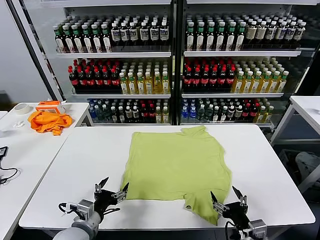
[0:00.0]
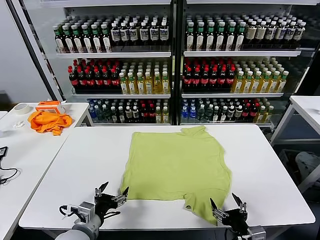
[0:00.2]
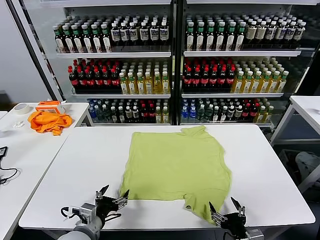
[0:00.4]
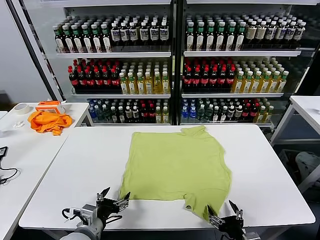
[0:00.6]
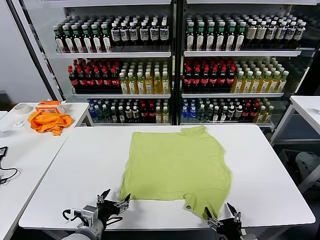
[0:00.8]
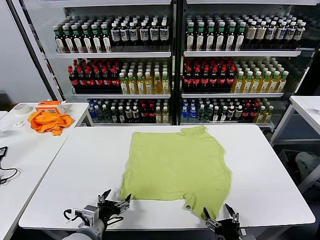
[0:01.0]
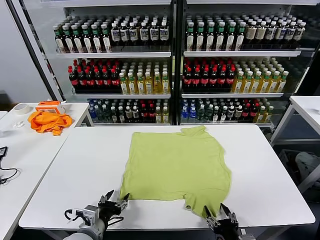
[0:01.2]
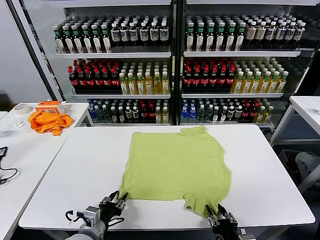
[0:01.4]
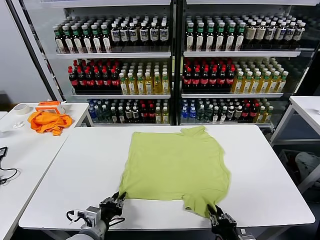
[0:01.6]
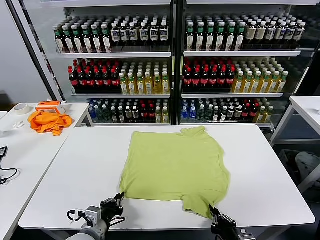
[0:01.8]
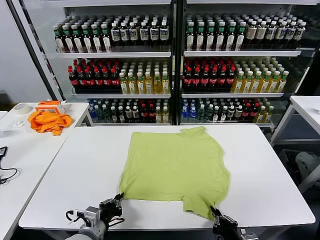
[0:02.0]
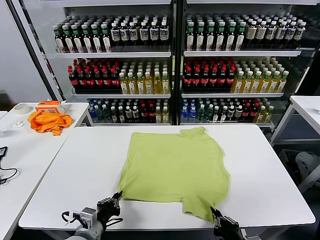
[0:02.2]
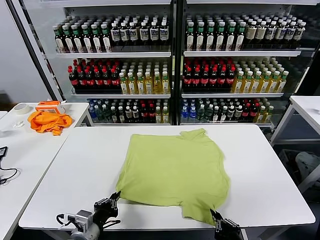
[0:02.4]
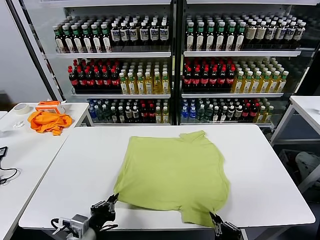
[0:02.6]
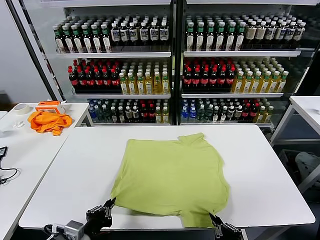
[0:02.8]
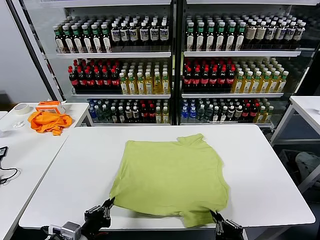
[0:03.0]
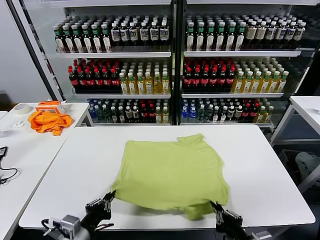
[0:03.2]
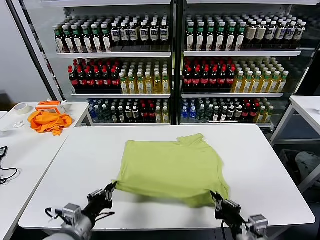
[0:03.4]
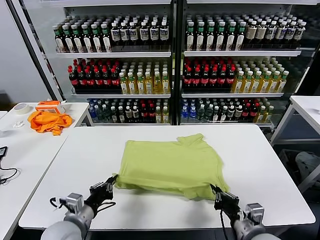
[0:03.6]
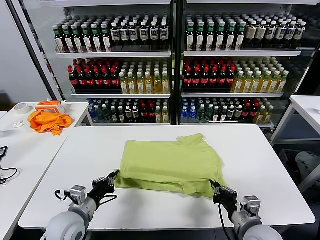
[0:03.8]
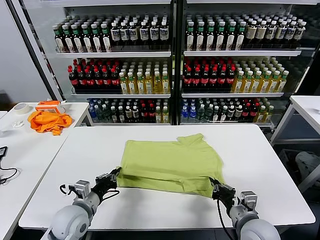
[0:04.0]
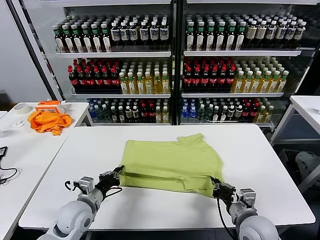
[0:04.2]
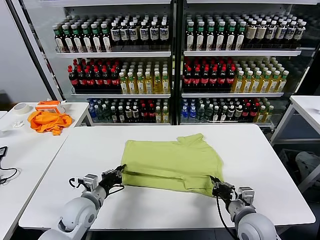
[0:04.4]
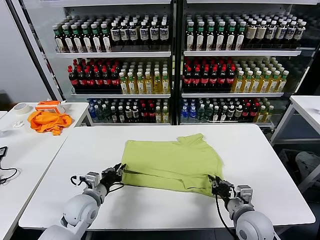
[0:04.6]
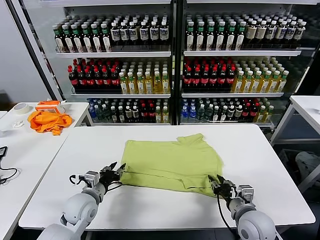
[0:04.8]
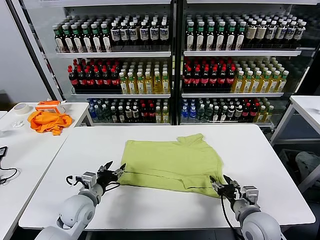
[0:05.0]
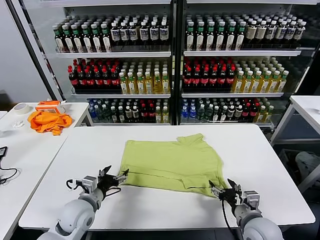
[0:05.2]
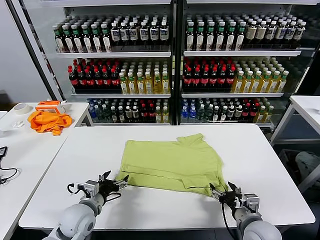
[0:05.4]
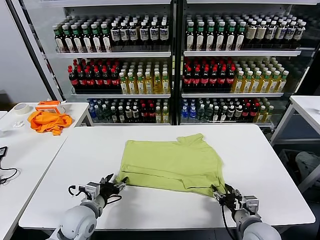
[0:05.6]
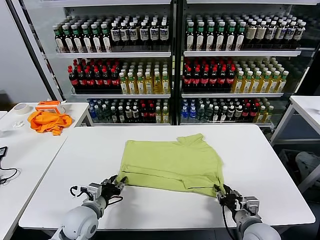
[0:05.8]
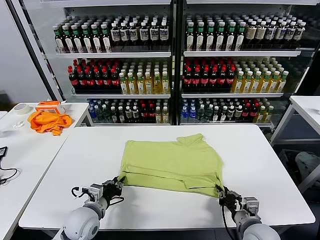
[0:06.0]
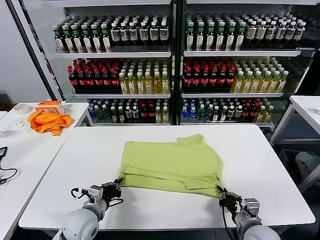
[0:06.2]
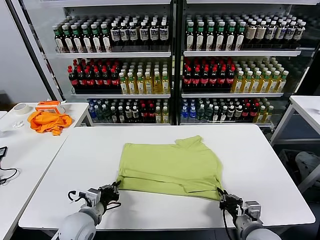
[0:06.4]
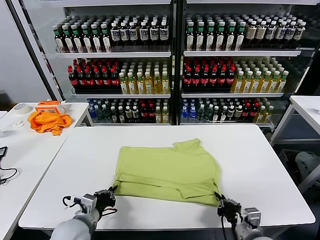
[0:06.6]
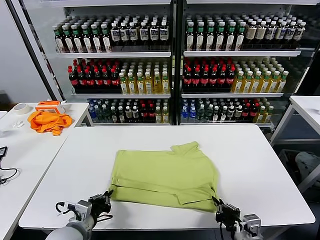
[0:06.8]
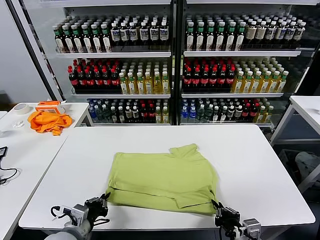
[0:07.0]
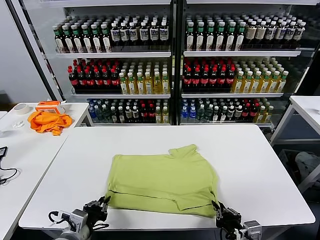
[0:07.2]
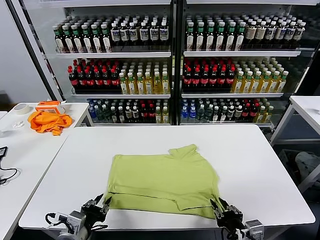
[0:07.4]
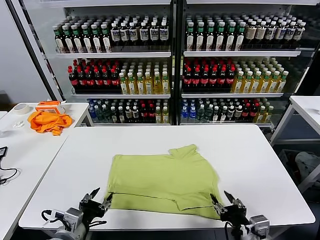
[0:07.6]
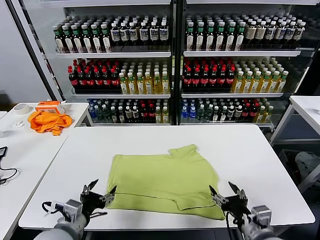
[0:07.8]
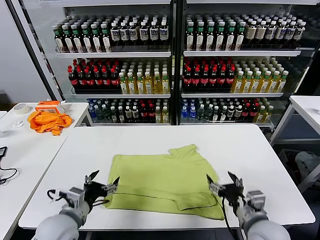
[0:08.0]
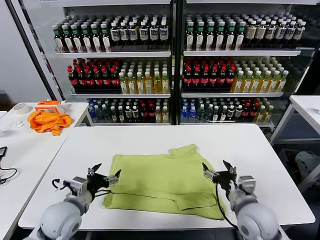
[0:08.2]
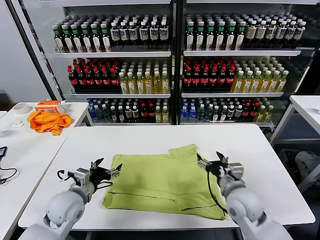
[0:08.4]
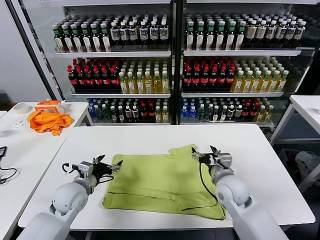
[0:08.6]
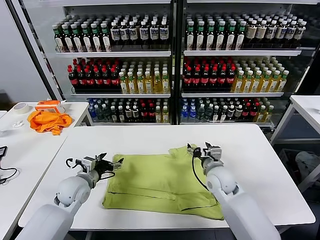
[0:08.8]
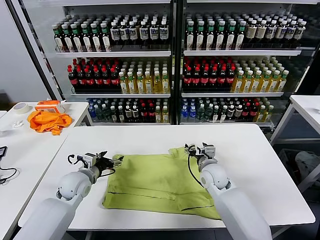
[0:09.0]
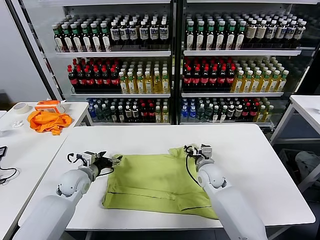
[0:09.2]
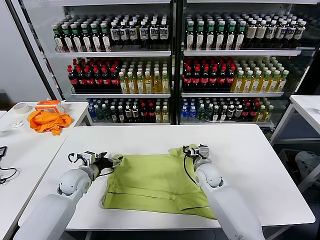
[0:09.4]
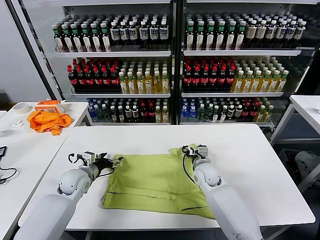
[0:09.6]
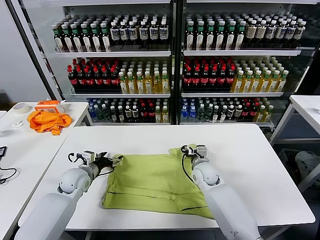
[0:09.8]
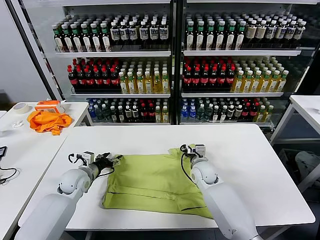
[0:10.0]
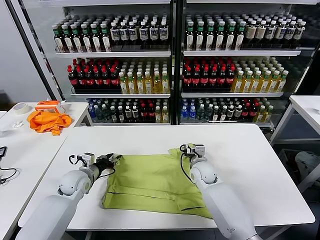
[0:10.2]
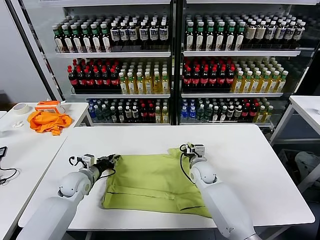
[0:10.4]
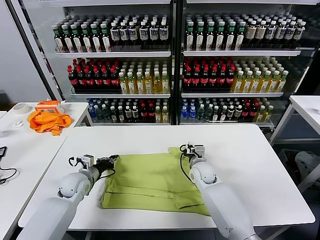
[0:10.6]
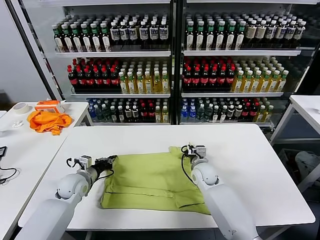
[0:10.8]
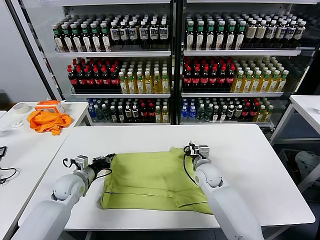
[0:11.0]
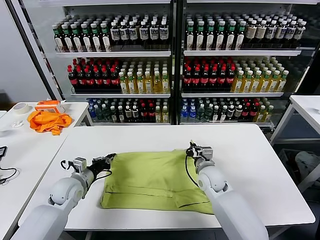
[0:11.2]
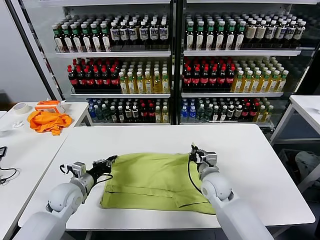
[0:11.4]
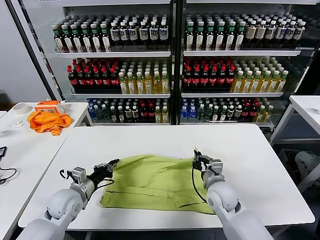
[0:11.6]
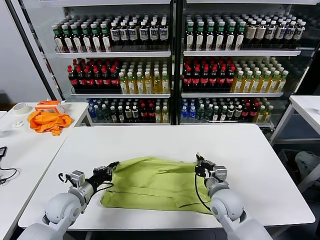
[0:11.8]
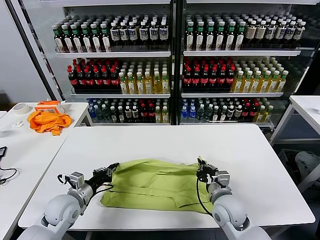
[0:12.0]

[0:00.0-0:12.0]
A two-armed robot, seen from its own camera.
Task of the whole recording: fold and organize the clothes.
Step, 0.0 to 1.8 s: use both grippers simultaneously to clamp the lower edge of the clothing fabric.
Step, 2.0 to 4.8 s: use both grippers to drag the lower edge of the fabric forward and fold it over the upper edge.
Step, 5.0 to 7.4 s: Drag the clothes downward with both gripper.
Step, 7.6 to 10.6 s: use both grippers simultaneously to clamp the upper edge of the clothing fabric.
1.6 to 3.0 s: The left gripper is displaced upward and backward by roughly 10 cm; the right gripper goes approximately 10 cm upward.
3.0 to 4.4 s: The two grippers go approximately 15 cm forward.
4.4 to 6.0 s: The left gripper opens and closes again; the right gripper opens, then closes again.
6.0 to 7.6 s: The left gripper goes some 10 cm backward and upward, and opens; the right gripper moves upward and backward, approximately 10 cm, and opens its fingers.
7.6 to 9.0 s: Both grippers move forward, about 25 cm. The left gripper opens up.
9.0 to 10.4 s: The right gripper shifts by some 5 cm, and closes; the left gripper closes its fingers.
10.4 to 12.0 s: The right gripper goes roughly 15 cm backward. The left gripper is displaced backward by some 10 cm.

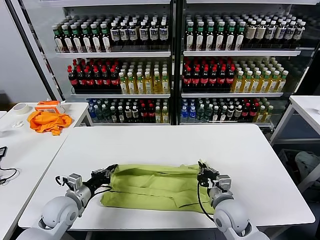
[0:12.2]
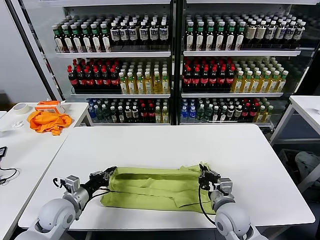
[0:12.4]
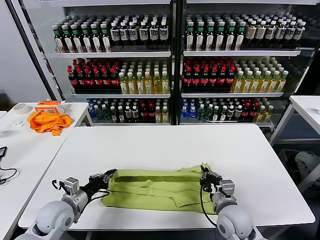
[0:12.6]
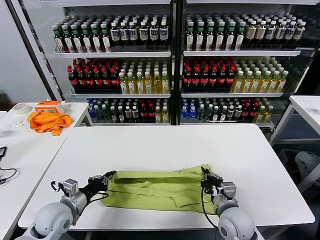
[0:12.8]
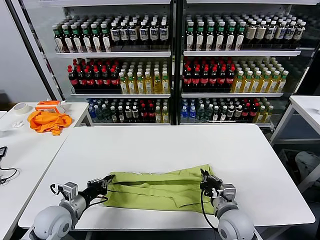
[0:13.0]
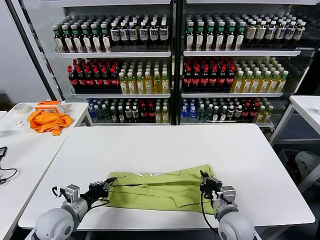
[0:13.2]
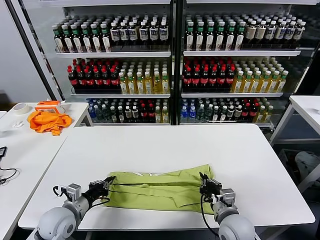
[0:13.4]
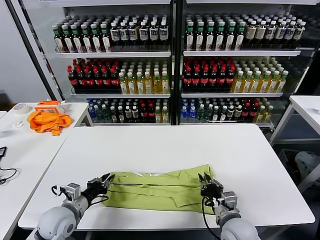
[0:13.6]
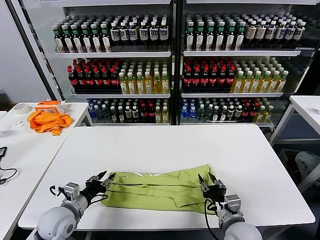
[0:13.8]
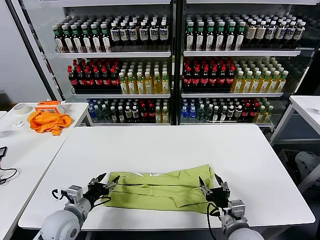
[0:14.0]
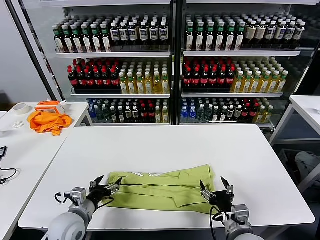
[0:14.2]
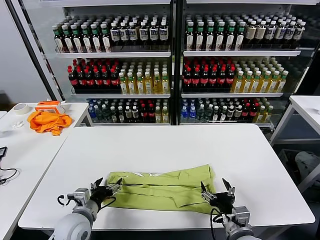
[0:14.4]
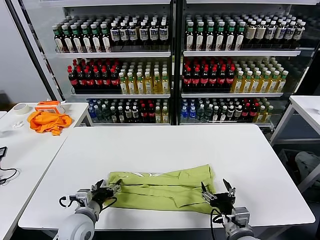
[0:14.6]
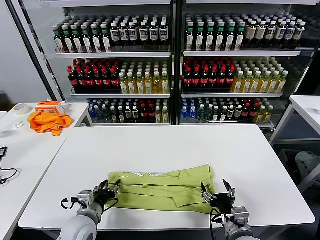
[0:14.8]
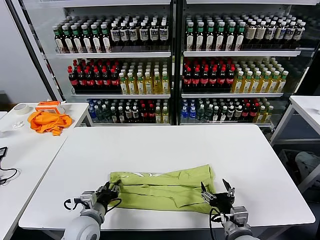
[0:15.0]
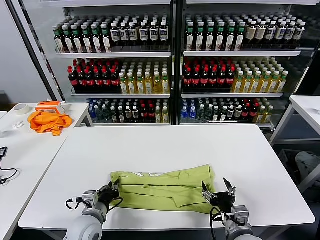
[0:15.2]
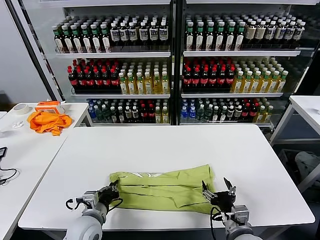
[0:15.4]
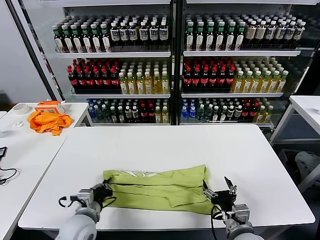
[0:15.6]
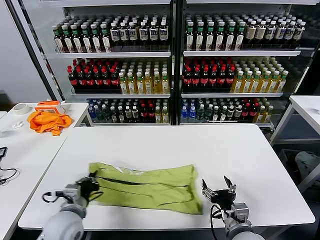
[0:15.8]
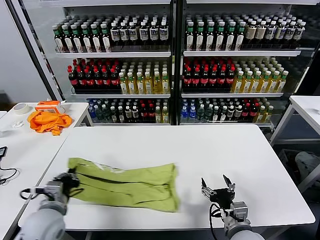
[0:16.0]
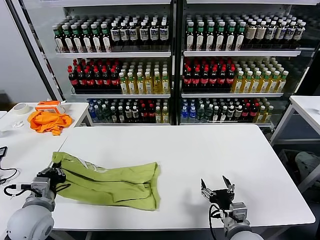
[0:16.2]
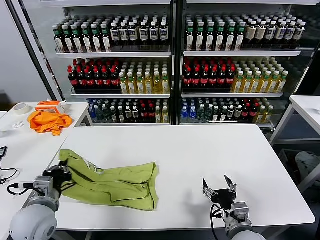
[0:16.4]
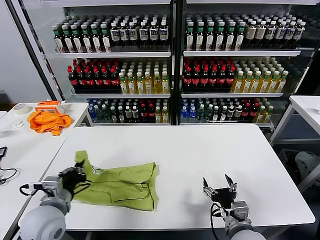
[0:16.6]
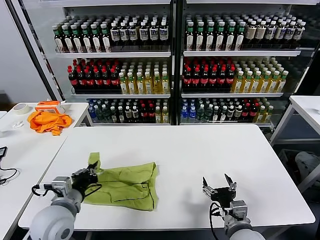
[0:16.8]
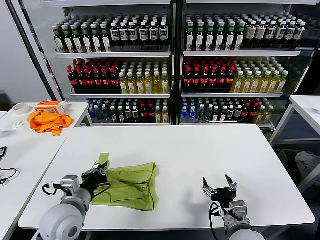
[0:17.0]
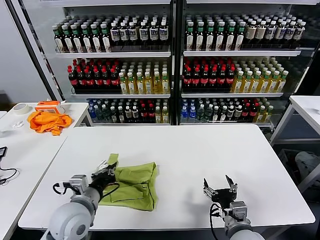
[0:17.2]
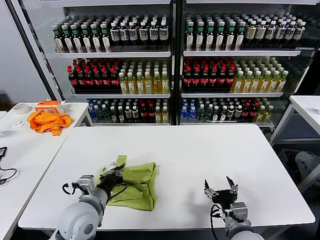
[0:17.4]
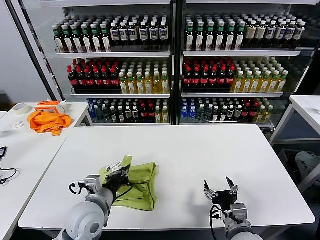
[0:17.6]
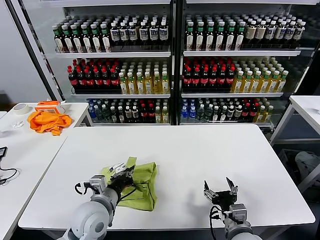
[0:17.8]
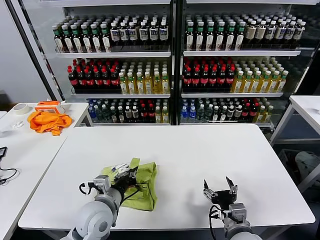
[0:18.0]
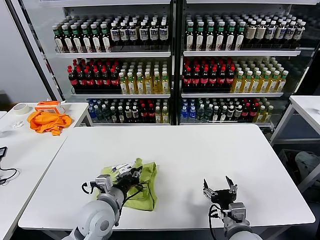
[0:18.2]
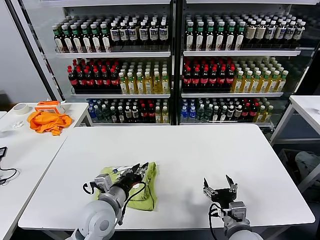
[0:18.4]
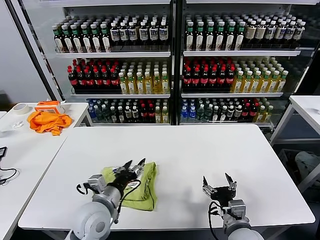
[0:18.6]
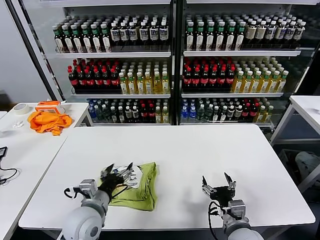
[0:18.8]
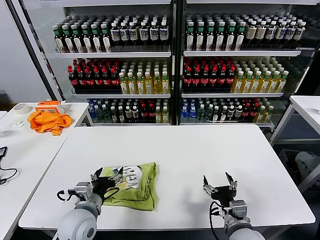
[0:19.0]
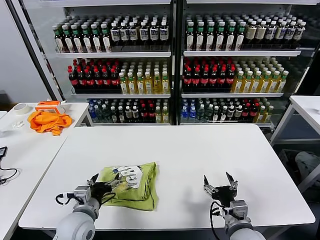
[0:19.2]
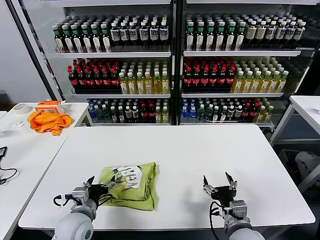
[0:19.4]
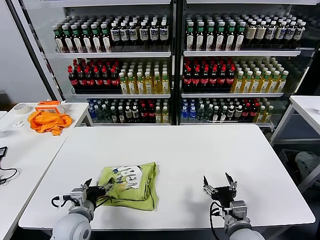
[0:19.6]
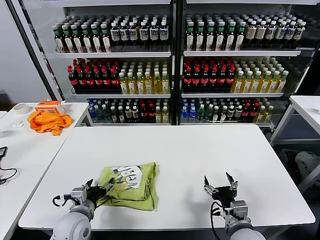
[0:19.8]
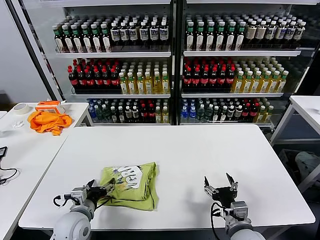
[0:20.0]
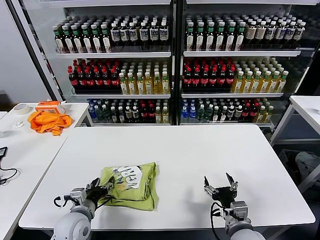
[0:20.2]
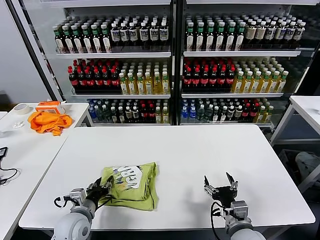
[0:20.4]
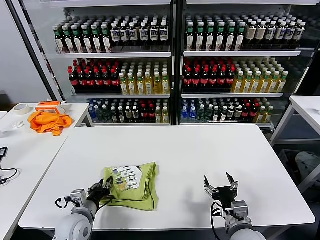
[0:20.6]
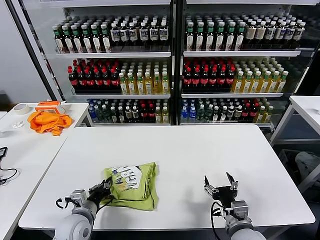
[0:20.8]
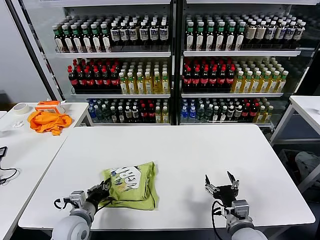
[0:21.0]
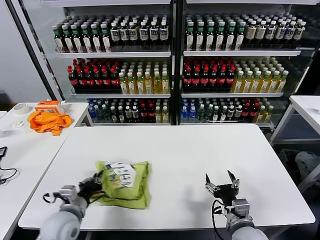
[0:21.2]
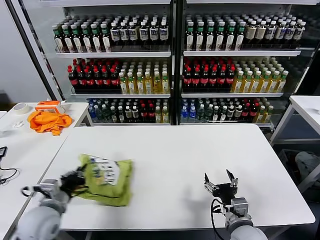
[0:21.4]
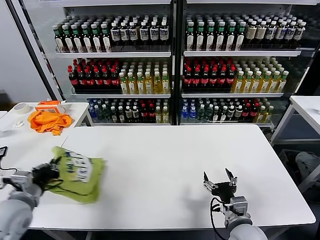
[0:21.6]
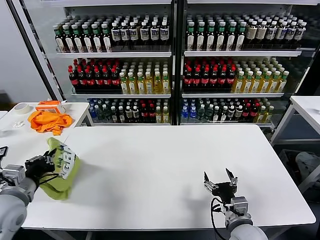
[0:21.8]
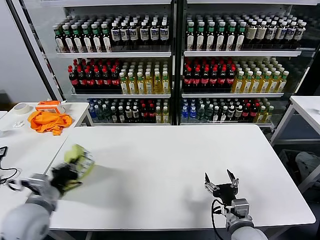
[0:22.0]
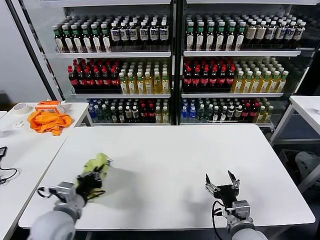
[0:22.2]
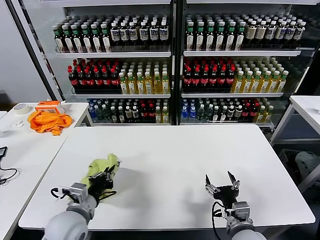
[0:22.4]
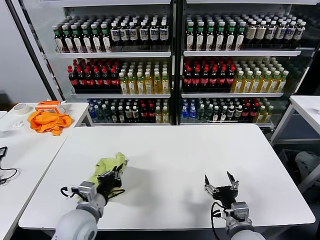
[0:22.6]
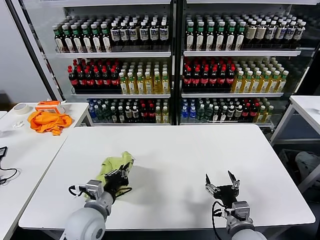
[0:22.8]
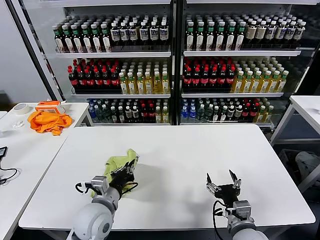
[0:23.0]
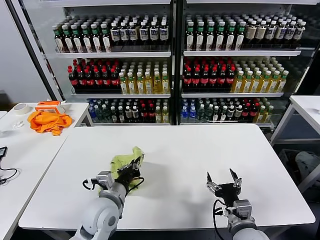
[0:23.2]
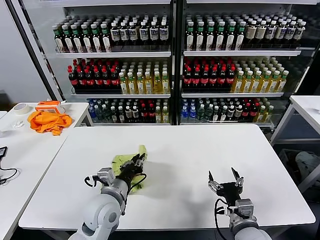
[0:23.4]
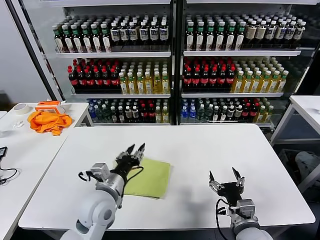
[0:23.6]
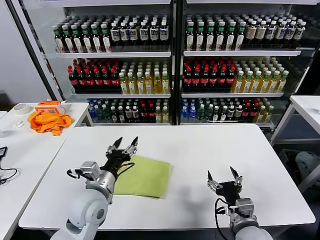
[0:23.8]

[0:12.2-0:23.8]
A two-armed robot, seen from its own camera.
Task of the whole recording: fold and organize the clothes.
Step, 12.2 to 13.8 s: use both grippers to drag the upper edge of the fabric backward and fold it over the lower edge.
Step, 14.0 to 15.4 s: use the left gripper to clamp the left edge of the fabric.
Step, 15.6 to 18.4 s: use the left gripper to drag the left edge of the fabric to the left and folds it over the right edge.
Step, 18.6 to 23.4 s: Flip the folded clothes over with left gripper.
12.2 to 13.6 s: The right gripper moves backward, about 5 cm.
13.6 to 15.0 s: The left gripper is displaced to the right by some 10 cm, and opens, then closes once more, while the right gripper opens.
15.0 to 16.6 s: The left gripper is displaced upward and to the left by roughly 10 cm, and closes its fingers.
16.6 to 18.0 s: The left gripper is displaced to the right by roughly 10 cm.
18.0 to 19.4 s: The left gripper is displaced to the left by approximately 5 cm, and opens up.
19.4 to 21.0 s: The left gripper closes up.
21.0 to 22.4 s: The left gripper shifts roughly 10 cm upward.
22.4 to 23.8 s: The left gripper heads to the right, covering about 5 cm, and opens.
